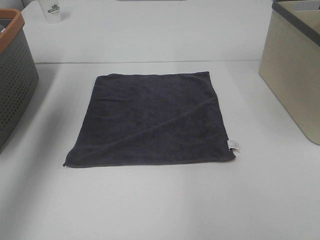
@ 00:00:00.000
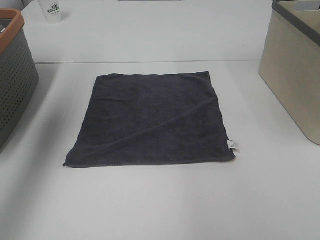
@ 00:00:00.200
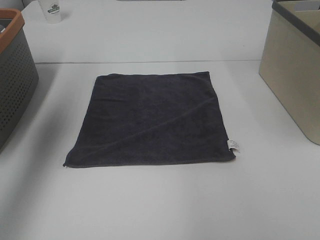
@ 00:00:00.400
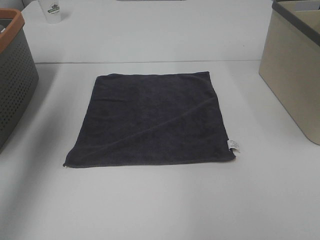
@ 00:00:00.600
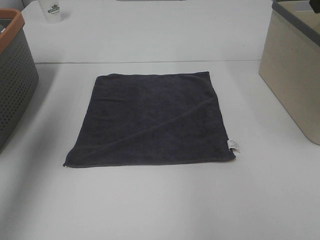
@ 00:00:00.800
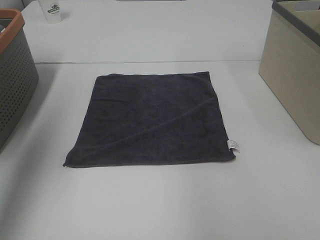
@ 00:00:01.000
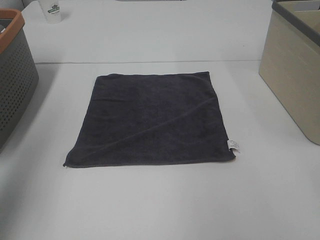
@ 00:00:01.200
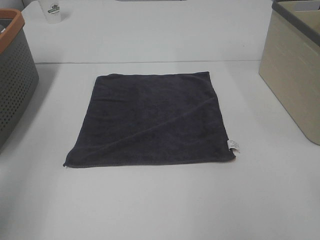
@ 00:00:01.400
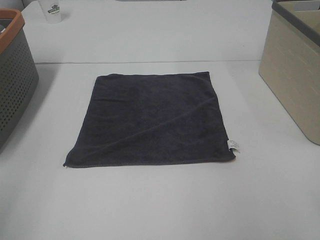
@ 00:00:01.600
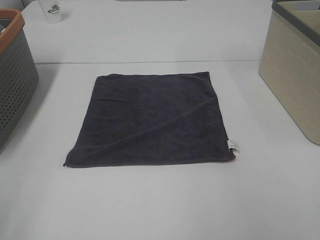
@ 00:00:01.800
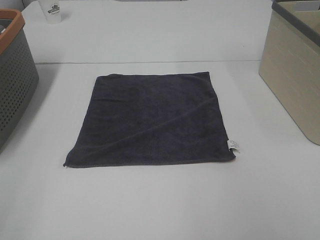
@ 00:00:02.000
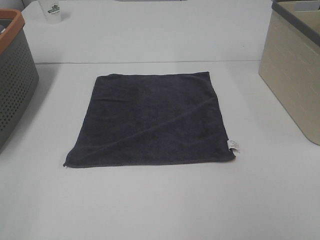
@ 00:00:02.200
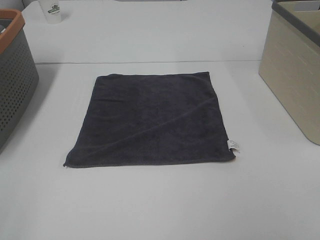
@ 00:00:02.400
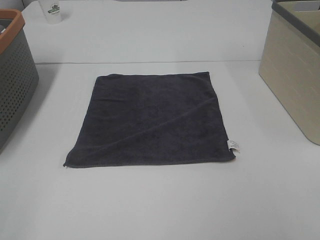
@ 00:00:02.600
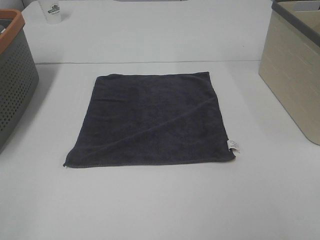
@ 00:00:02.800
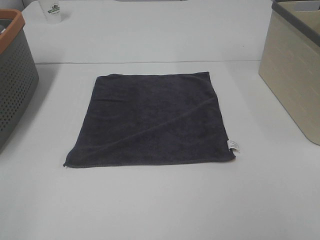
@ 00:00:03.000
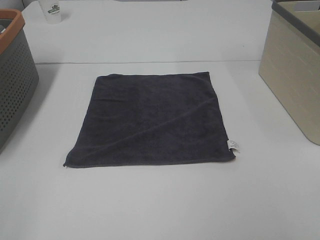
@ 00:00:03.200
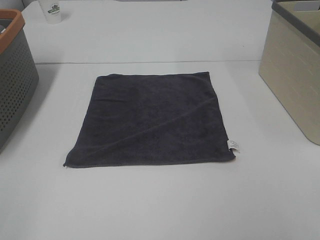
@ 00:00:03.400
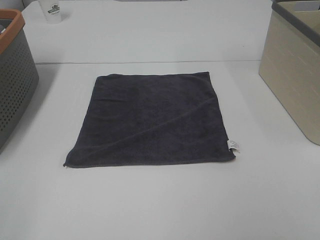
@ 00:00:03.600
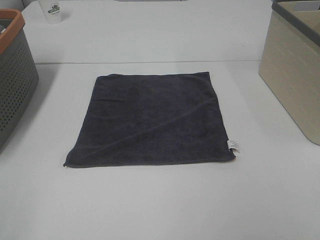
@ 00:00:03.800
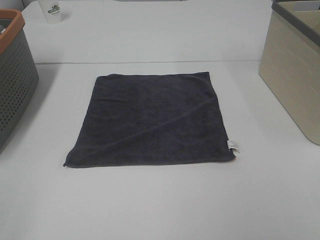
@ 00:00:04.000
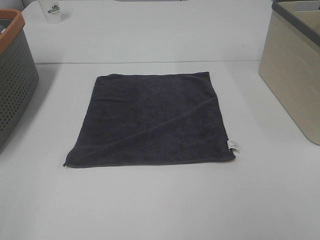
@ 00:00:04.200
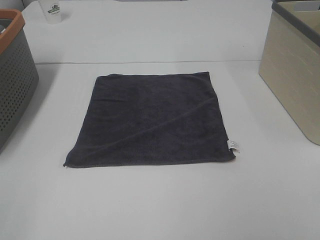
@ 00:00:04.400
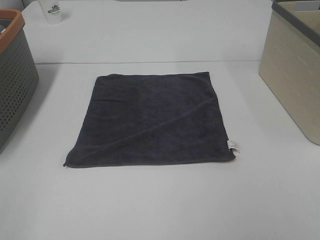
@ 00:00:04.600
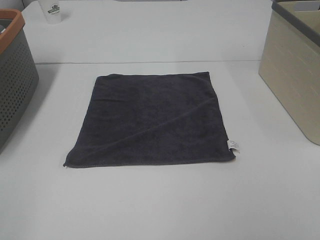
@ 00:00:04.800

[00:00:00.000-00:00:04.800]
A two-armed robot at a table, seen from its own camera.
Task of the whole recording: Remove the towel and place it.
00:00:00.000 to 00:00:01.600: The left gripper is displaced backward and downward by approximately 30 cm.
